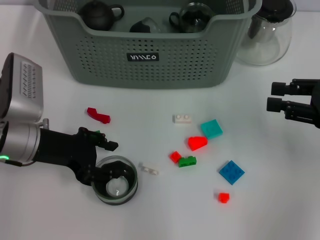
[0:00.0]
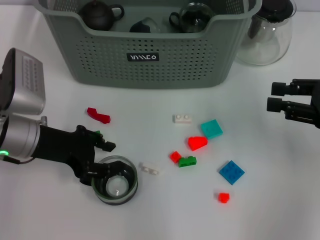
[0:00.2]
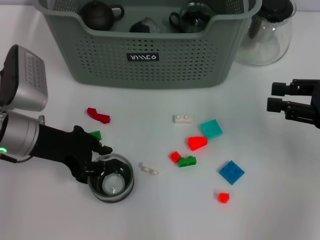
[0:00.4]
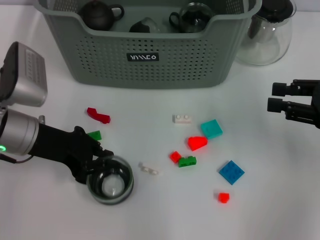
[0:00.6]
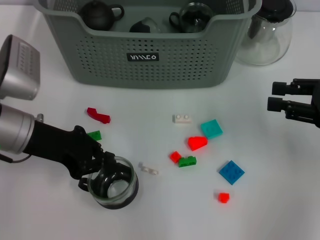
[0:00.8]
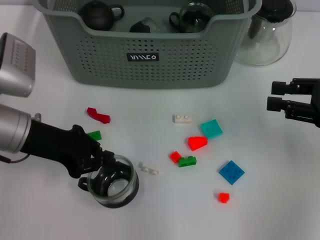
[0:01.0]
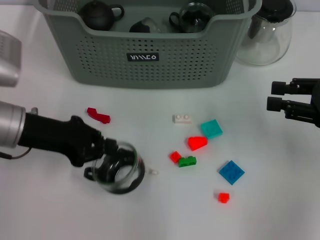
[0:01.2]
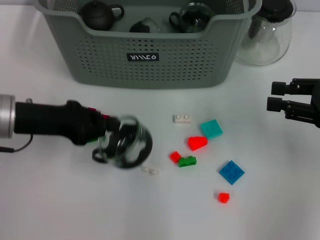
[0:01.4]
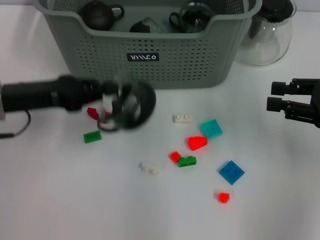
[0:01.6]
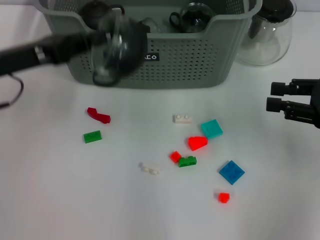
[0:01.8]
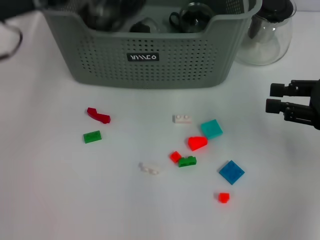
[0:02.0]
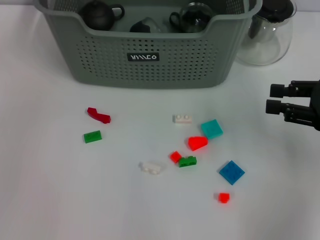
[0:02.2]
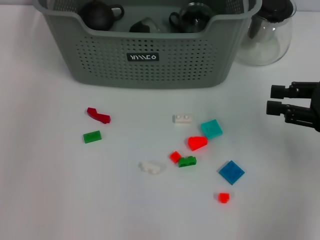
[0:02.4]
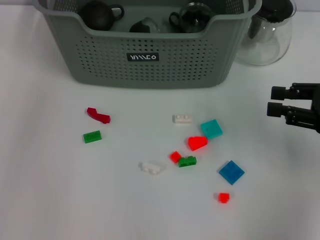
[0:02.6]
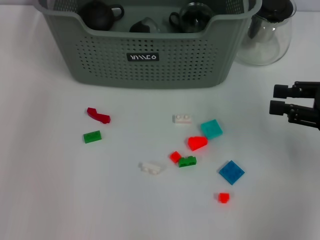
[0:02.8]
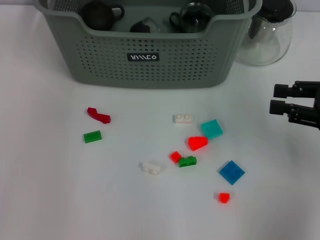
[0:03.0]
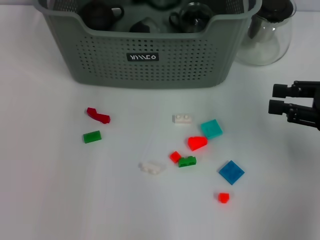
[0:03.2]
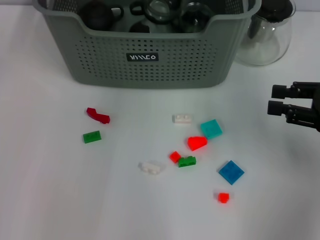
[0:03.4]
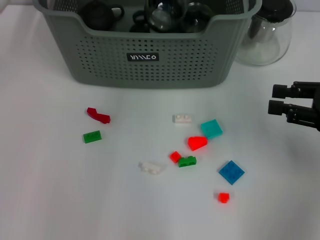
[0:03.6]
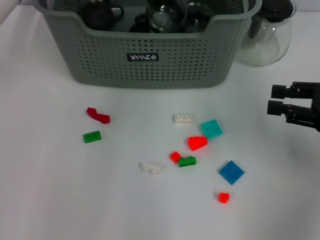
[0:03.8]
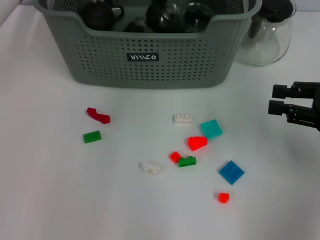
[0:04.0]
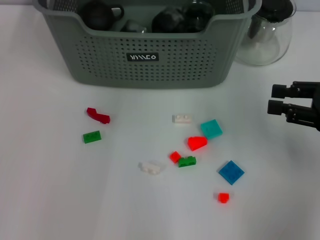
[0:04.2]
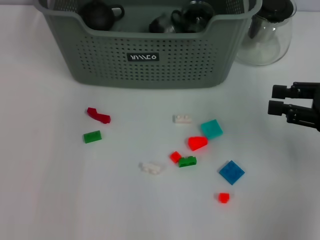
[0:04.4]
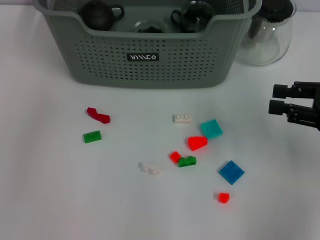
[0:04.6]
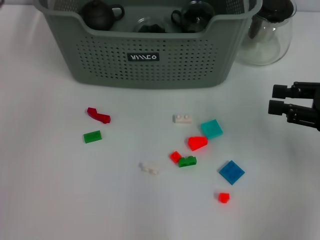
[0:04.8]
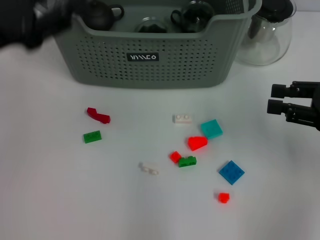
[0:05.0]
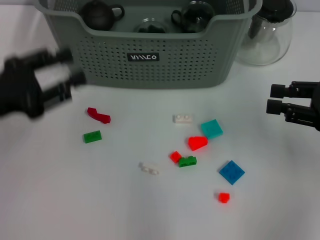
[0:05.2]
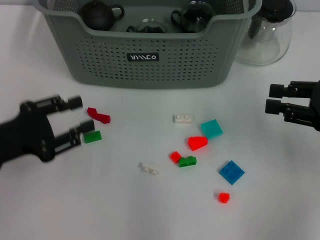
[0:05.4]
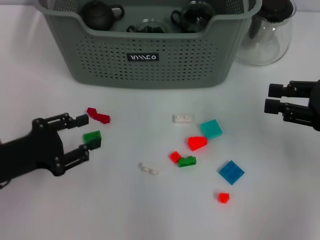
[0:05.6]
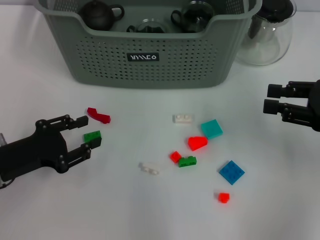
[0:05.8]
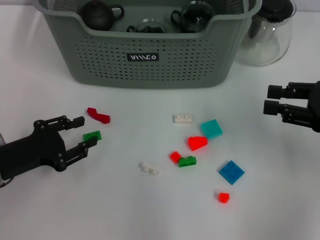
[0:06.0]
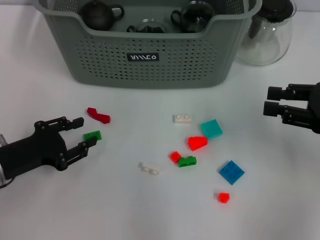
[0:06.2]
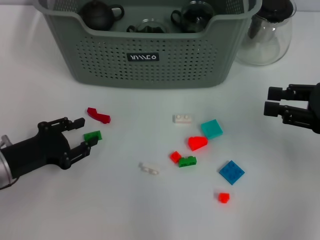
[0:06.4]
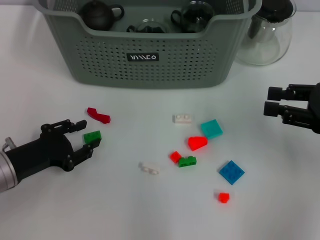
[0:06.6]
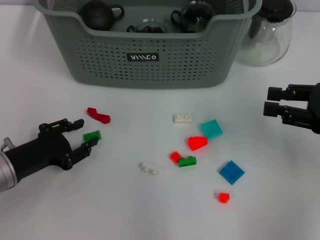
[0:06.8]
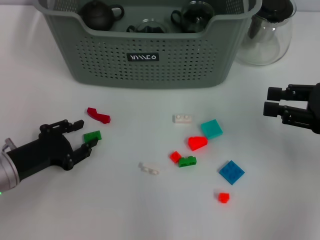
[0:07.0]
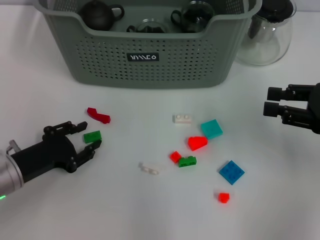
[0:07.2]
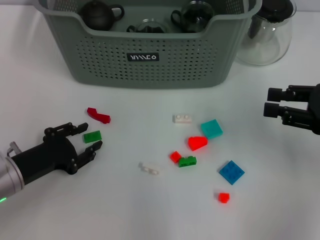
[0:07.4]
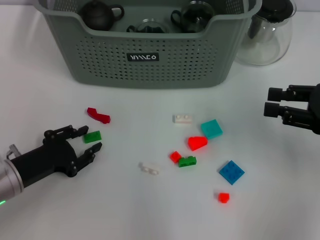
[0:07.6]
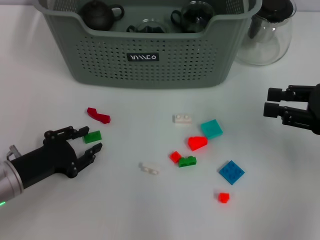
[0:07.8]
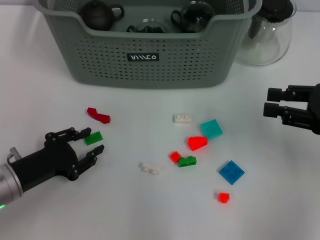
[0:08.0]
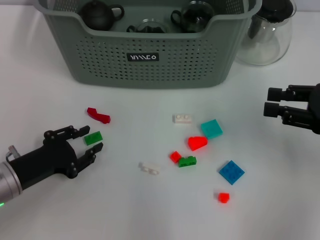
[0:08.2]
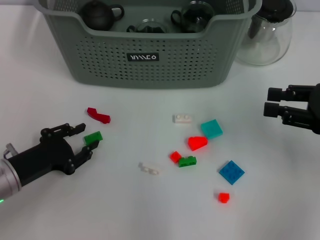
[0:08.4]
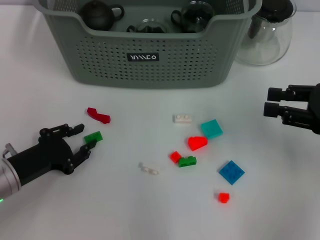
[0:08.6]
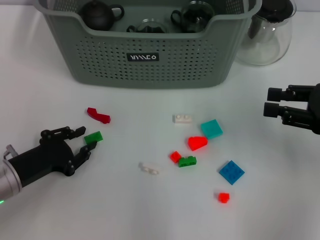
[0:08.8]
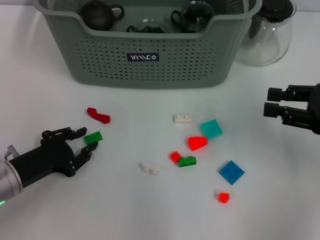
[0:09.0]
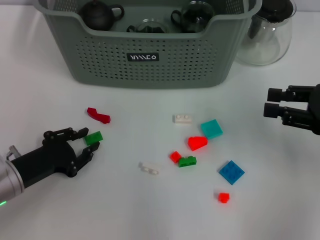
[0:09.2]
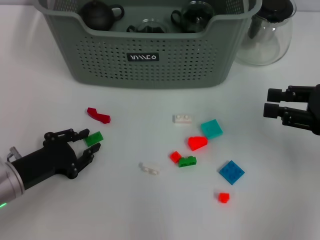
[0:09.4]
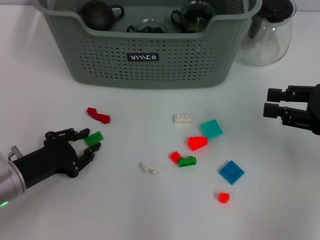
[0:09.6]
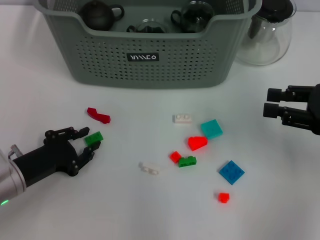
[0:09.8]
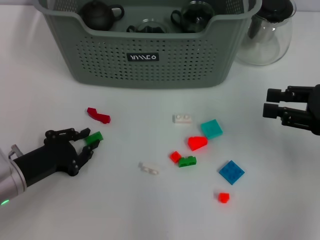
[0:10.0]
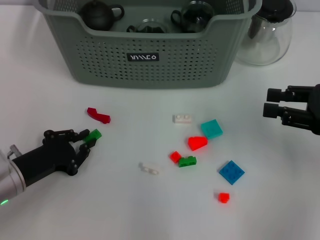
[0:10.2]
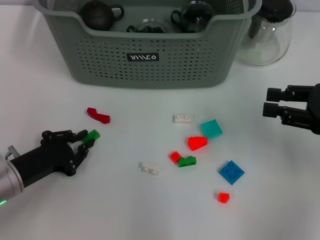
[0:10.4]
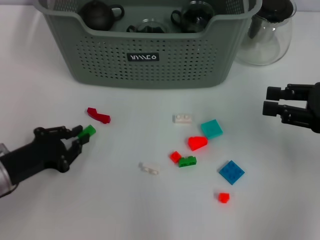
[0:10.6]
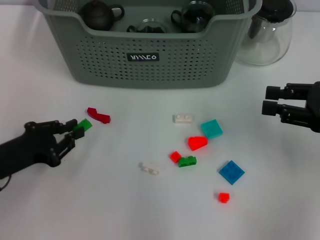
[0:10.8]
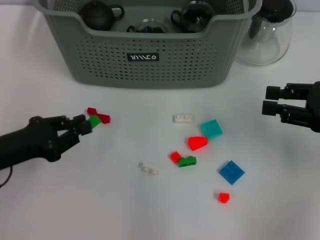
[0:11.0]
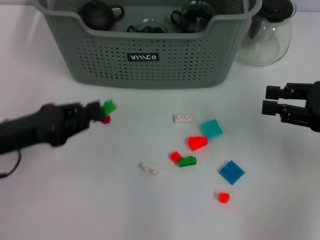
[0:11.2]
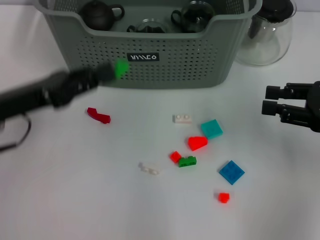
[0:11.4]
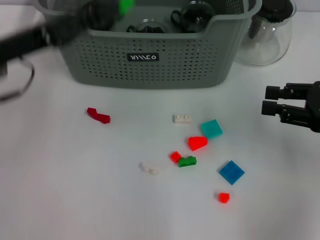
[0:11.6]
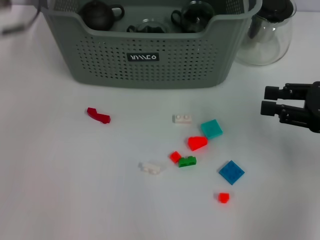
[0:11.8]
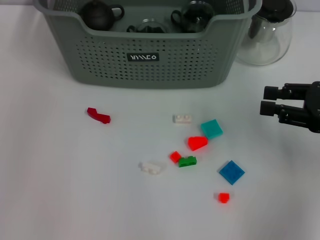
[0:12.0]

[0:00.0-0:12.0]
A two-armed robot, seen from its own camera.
Task of the whole recording: pick up the teacup on the table and place it into the storage bin, pick up the block on the table and place it into the storage bin.
Step, 0:01.2 to 0:04.8: Place the cup in the storage box with left gripper.
Step, 0:05.2 to 0:10.4: Grasp the green block with left gripper.
0:00.0 to 0:01.6: The left gripper ends up some 5 cm from where it was, and closes.
0:01.6 to 0:03.0: The left gripper moves forward, upward and to the right, some 25 cm.
0:04.4 to 0:06.0: The left gripper is displaced downward, backward and to the left by approximately 35 cm.
0:06.0 to 0:07.6: The grippers move only a little.
0:07.6 to 0:10.4: Both grippers stay put.
0:10.4 to 0:12.0: The left gripper travels upward and forward by roughly 35 cm.

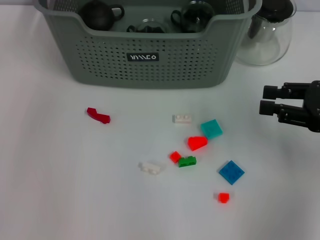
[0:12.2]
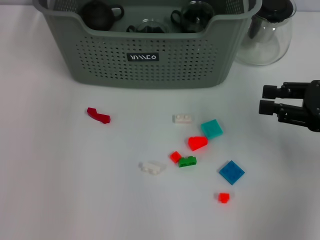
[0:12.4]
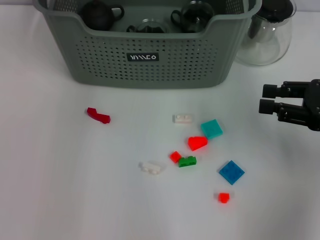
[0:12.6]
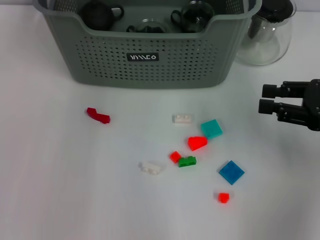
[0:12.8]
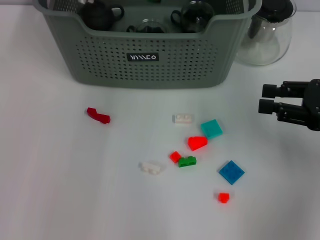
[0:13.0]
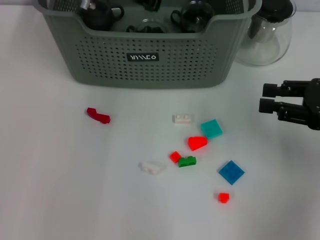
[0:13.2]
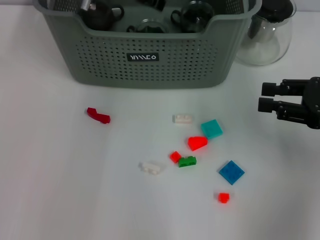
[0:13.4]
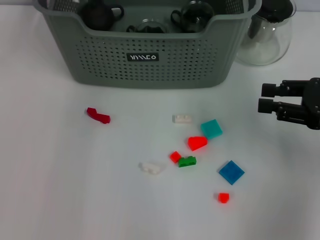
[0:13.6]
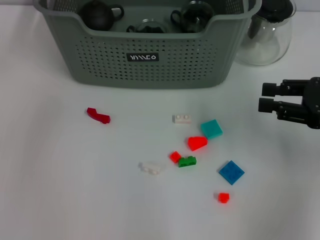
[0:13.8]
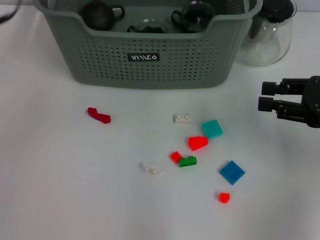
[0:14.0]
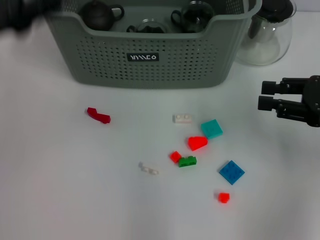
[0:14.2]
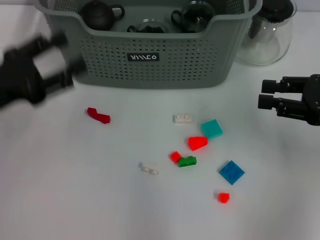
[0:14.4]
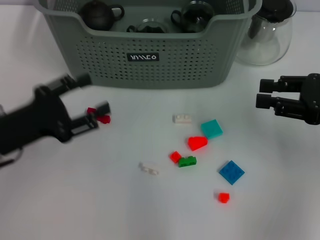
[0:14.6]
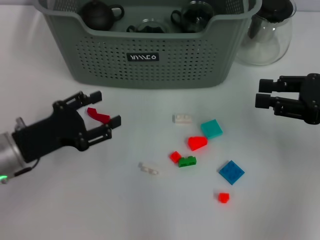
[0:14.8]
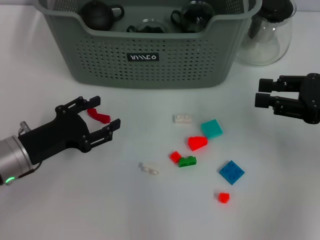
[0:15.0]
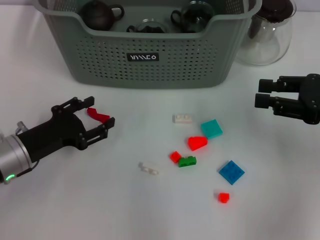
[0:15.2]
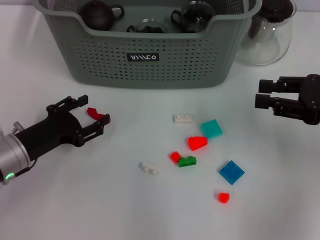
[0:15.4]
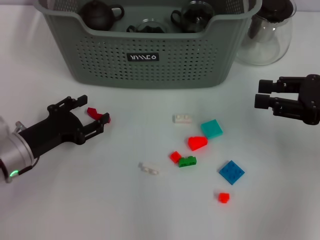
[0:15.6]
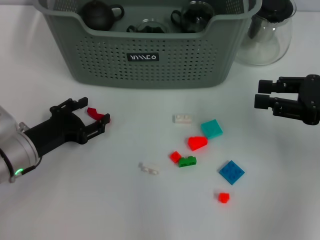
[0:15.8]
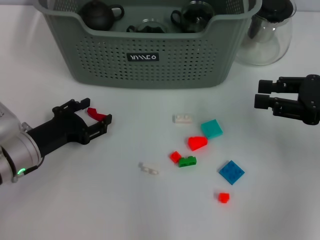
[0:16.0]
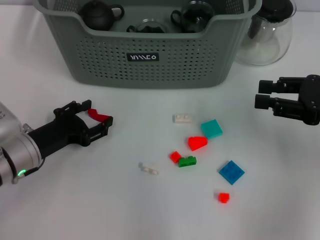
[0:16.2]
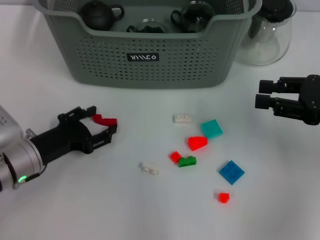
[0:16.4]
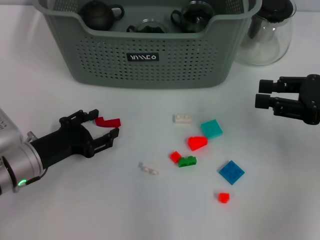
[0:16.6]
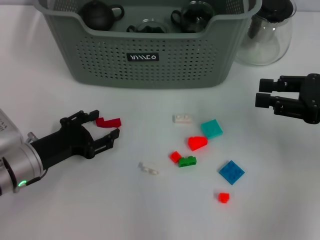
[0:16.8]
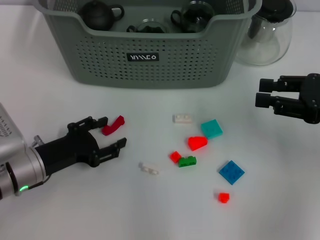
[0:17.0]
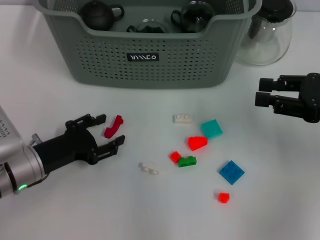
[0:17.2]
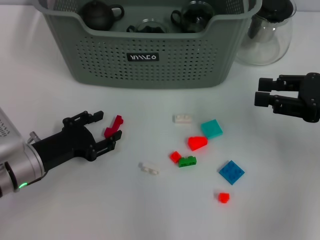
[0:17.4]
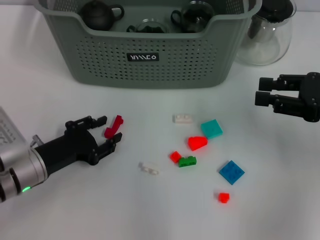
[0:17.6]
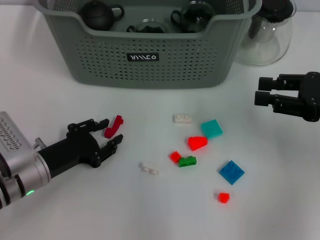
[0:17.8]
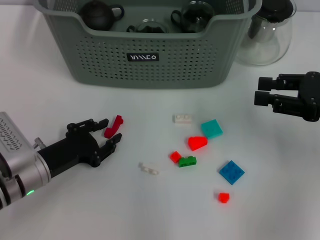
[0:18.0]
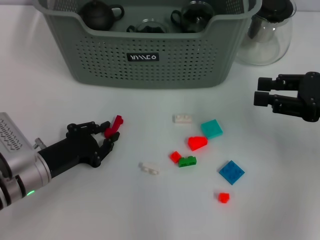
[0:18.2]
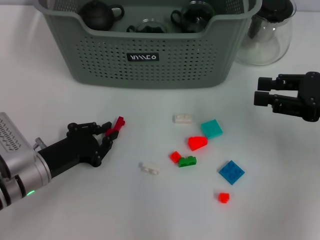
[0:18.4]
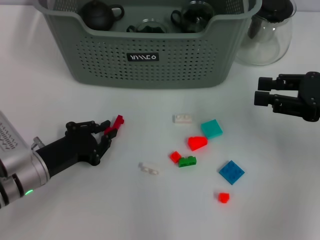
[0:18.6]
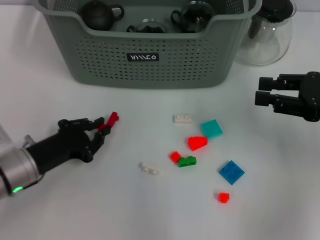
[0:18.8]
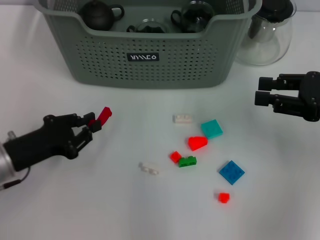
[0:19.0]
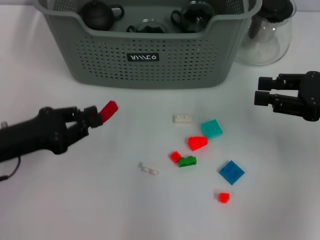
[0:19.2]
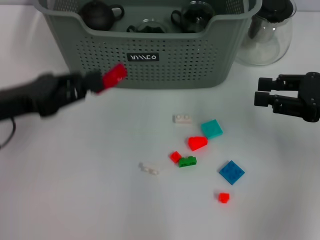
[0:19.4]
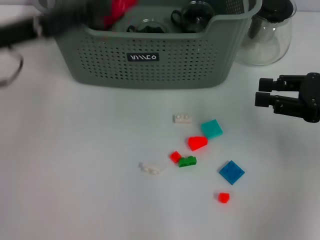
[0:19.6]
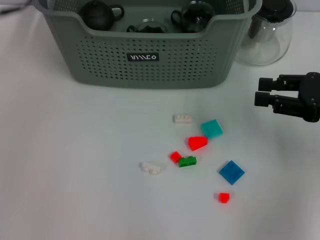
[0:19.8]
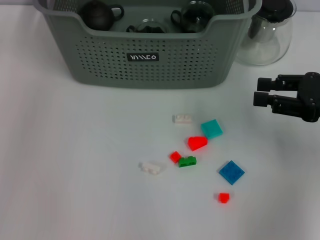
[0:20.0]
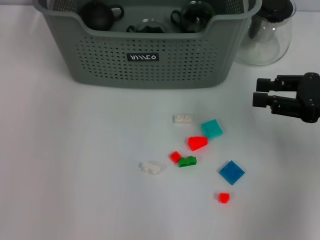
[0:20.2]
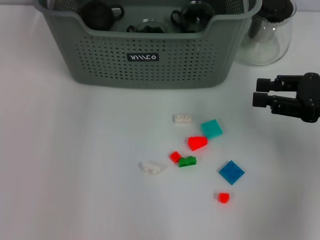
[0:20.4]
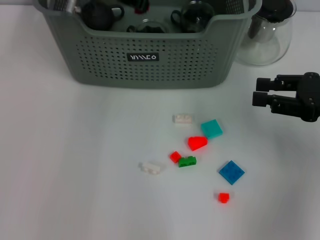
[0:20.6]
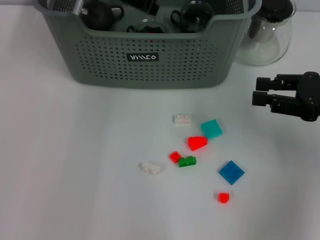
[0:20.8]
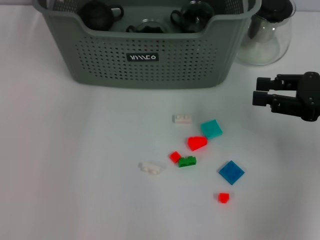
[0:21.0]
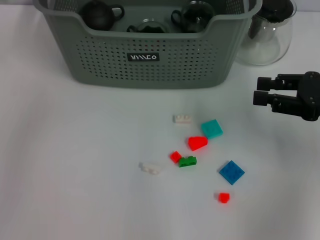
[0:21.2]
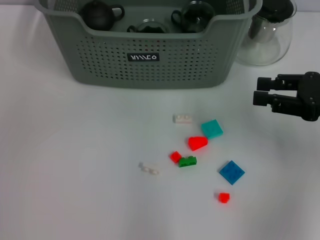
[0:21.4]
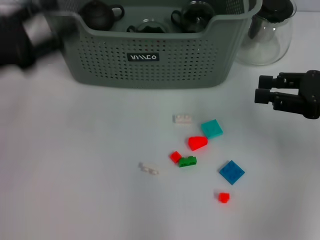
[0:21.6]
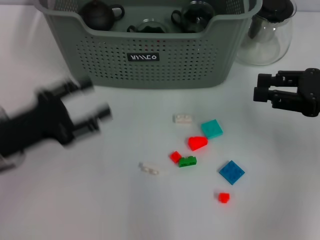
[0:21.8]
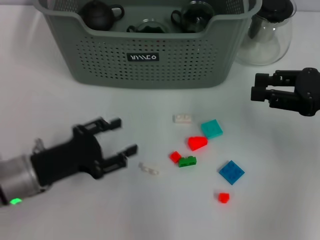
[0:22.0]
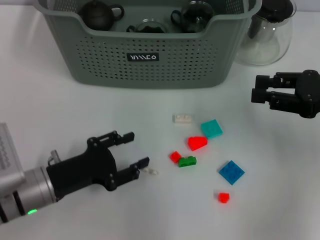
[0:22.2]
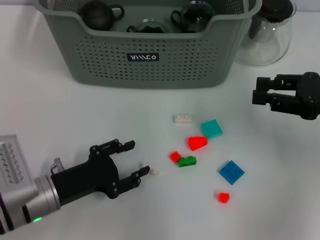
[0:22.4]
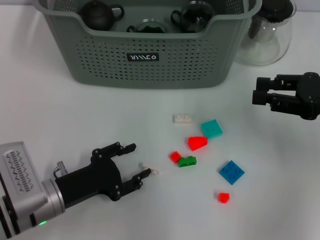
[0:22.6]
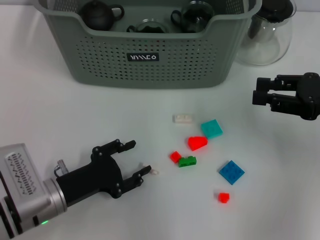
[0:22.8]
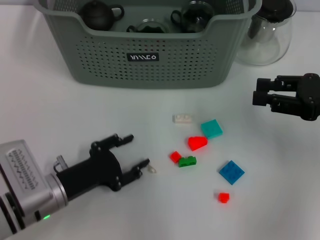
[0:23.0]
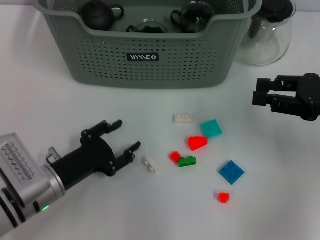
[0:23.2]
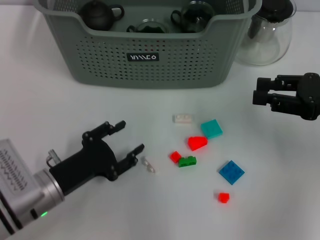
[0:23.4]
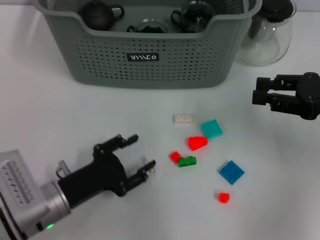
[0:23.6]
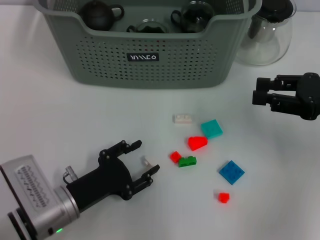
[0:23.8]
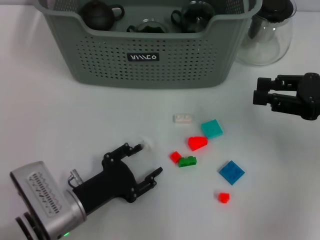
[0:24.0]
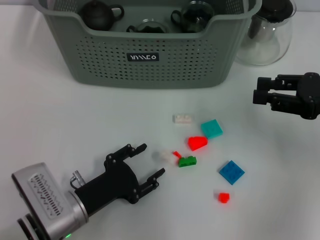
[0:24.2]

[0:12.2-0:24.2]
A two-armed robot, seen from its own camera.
Task of the whole recording: pick up the teacup on the table and place it into the storage bin, pick up the block on the table and place it into the storage bin.
Step, 0:14.2 to 0:18.4: Grasp the red block with left gripper.
Step, 0:18.6 to 0:21.4: Place the red block in the storage box with left gripper.
0:13.8 to 0:15.2: The left gripper shifts about 25 cm downward and backward.
0:15.2 to 0:16.6: The grippers stay close to where they were, moving slightly.
0:16.6 to 0:18.2: The left gripper closes up.
0:18.2 to 0:19.8: The left gripper is displaced upward and forward by some 30 cm.
0:21.2 to 0:22.6: The left gripper travels downward and backward by about 30 cm.
0:22.6 to 0:24.2: The grippers make only small movements.
